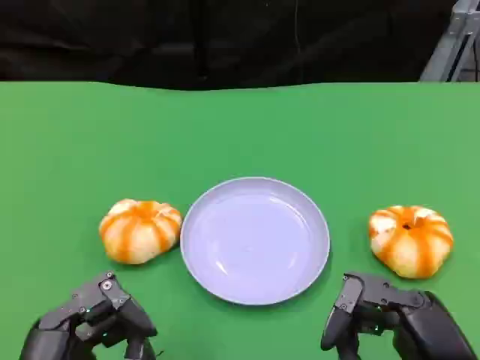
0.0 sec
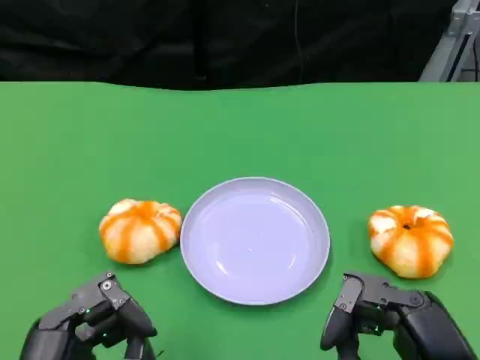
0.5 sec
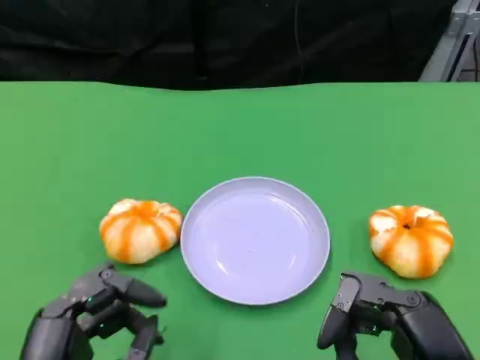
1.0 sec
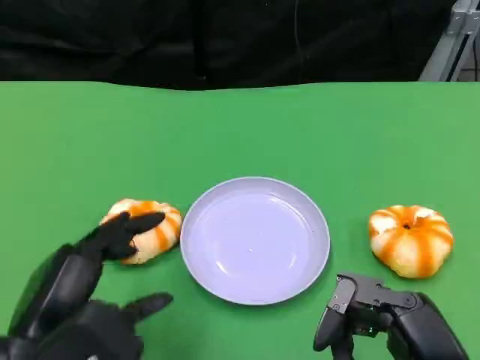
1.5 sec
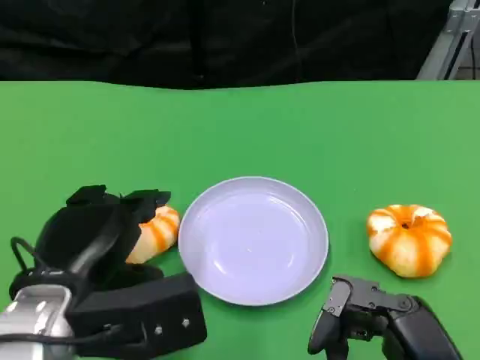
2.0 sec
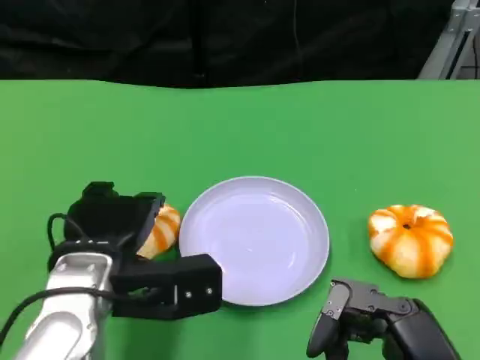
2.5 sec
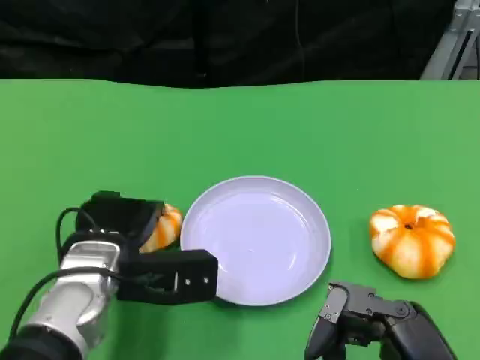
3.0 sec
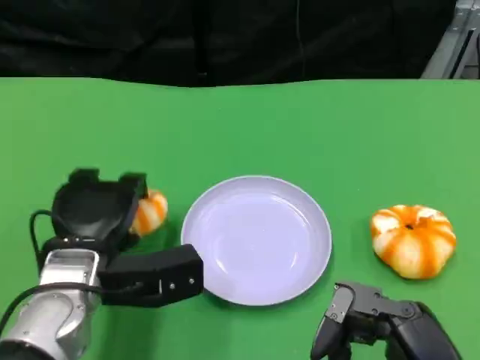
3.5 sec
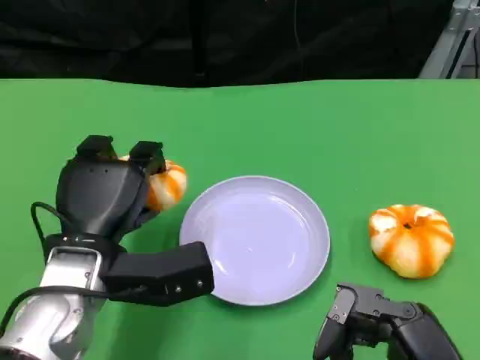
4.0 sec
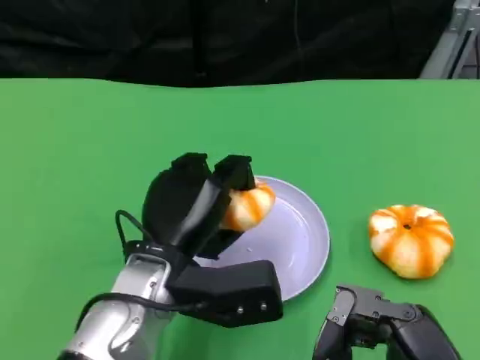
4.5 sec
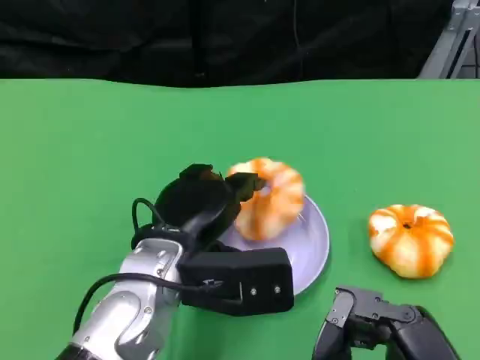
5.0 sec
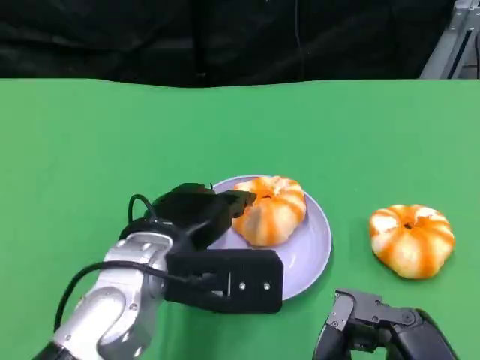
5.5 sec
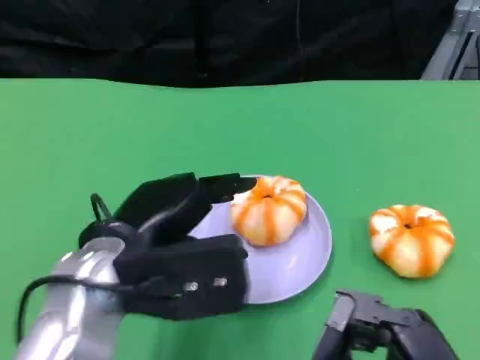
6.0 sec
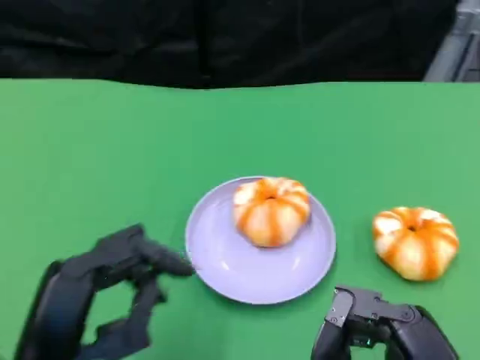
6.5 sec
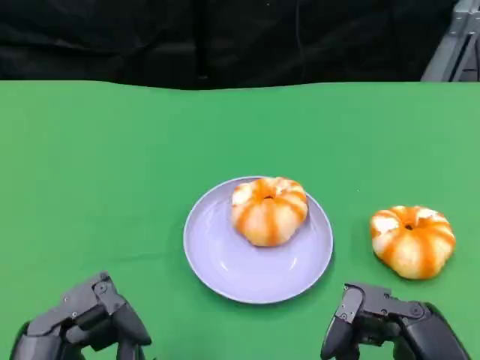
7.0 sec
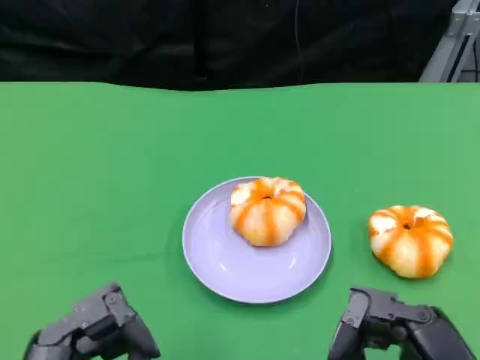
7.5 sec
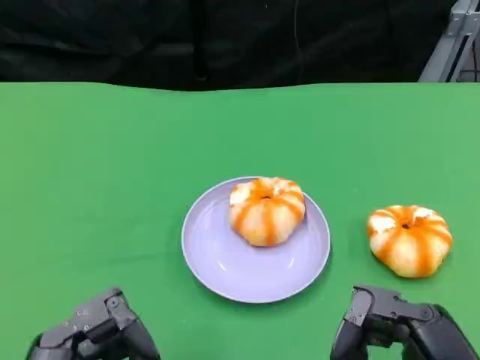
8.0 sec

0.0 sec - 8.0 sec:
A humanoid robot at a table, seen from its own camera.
Task of the whole recording: Grasp the bread from the table and place it into the plate.
0.0 sec - 2.0 sec: The left hand travels forward by about 10 cm.
2.0 sec - 4.0 sec: The left hand moves forward, about 5 cm.
4.0 sec - 6.0 sec: The left hand is displaced upward by approximately 5 cm.
6.0 sec - 8.0 sec: The left hand goes some 15 cm backward and downward.
